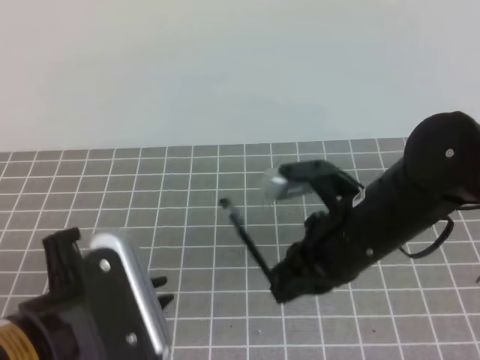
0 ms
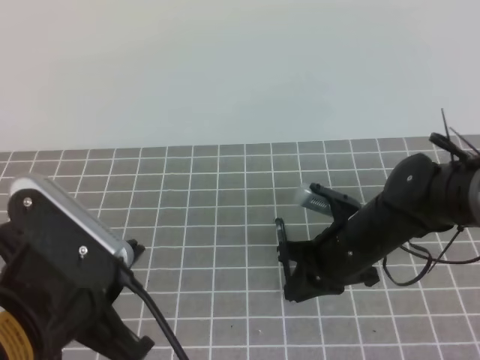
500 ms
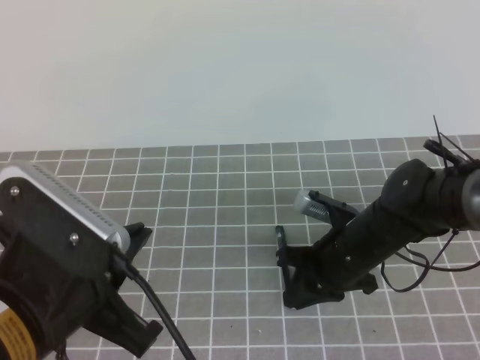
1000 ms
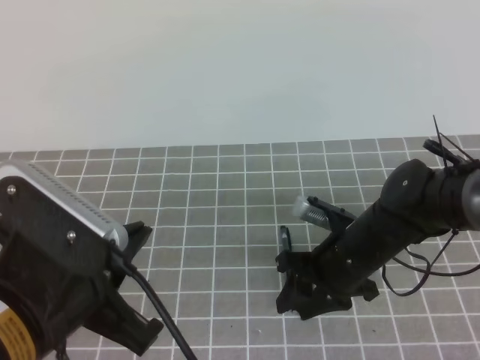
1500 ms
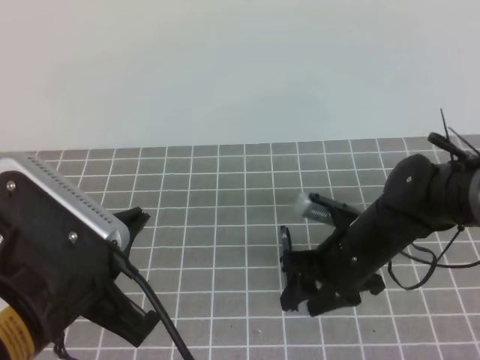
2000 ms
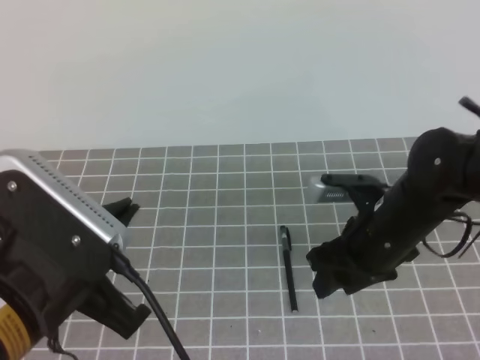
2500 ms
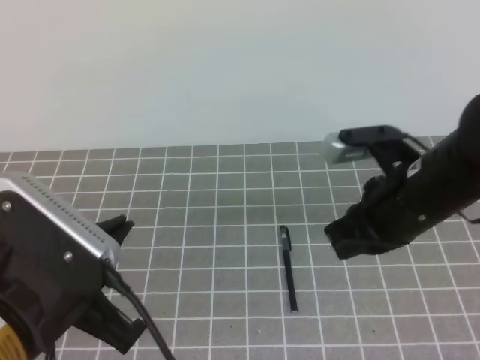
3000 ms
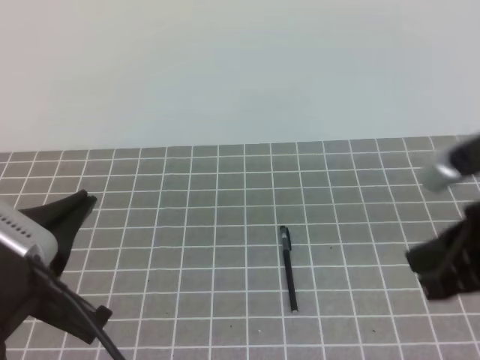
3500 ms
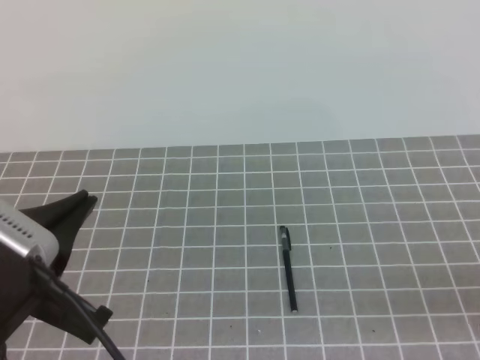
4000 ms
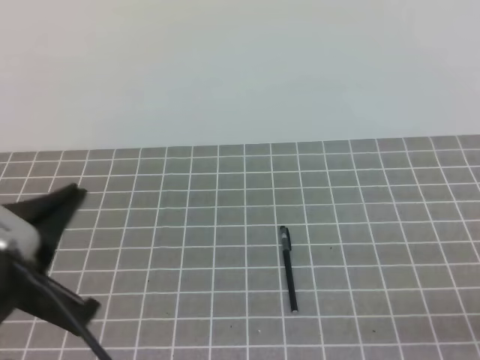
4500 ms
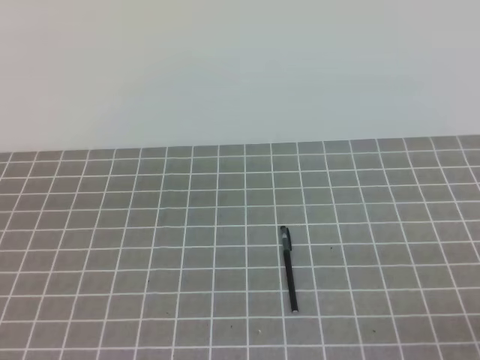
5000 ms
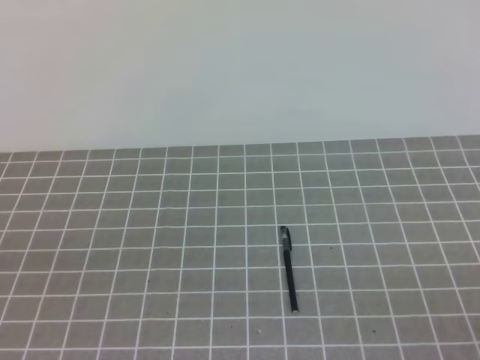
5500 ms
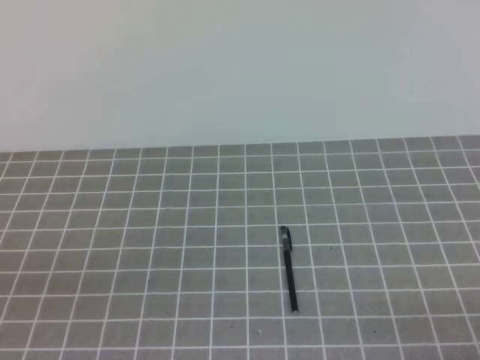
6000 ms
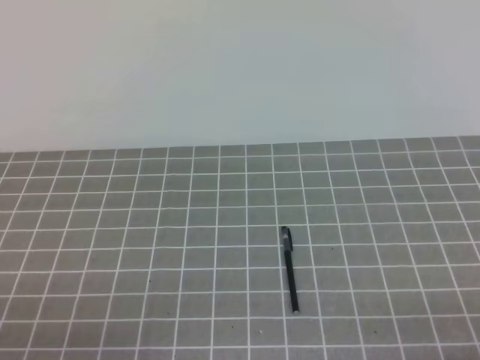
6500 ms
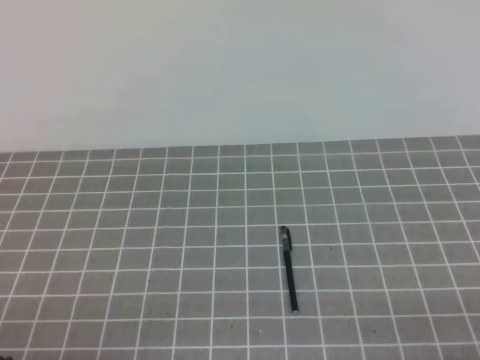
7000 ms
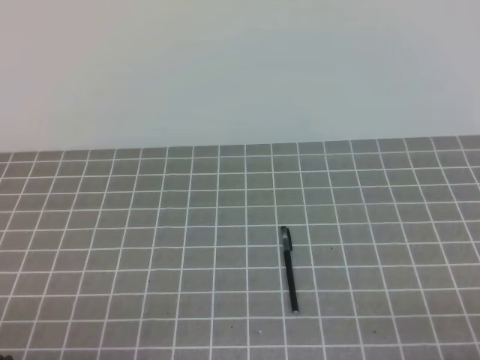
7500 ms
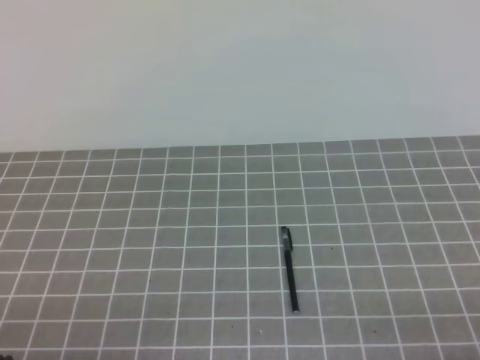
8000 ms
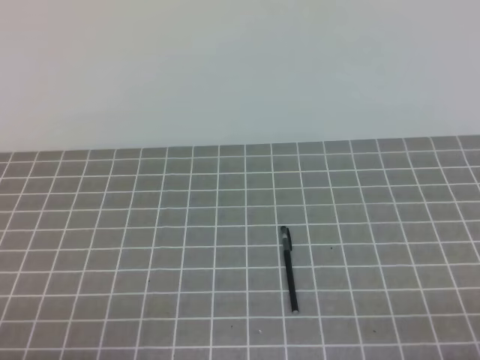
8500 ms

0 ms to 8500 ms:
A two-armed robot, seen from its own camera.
Task of the whole recording: on the grey tablecloth, hold the pen cap in one hand and the pen in the other, then cover the pen cap.
0 ms to 2000 ms: The left gripper closes. The right gripper heads downward and forward, covering approximately 10 cm, and opens.
2000 ms to 4000 ms: The right gripper heads backward, to the right and upward, covering roughly 30 cm, and closes.
4000 ms to 6500 ms: The right gripper heads downward, backward and to the right, covering about 15 cm. The left gripper goes some 15 cm downward, to the left and backward.
